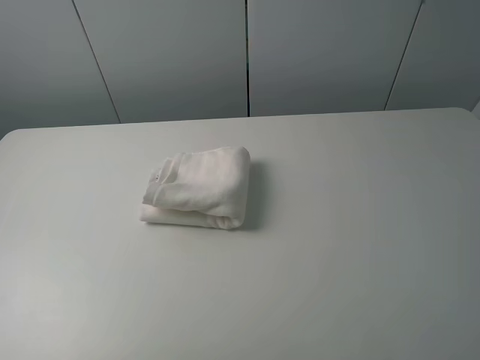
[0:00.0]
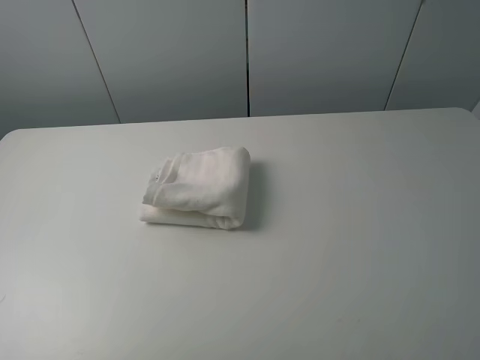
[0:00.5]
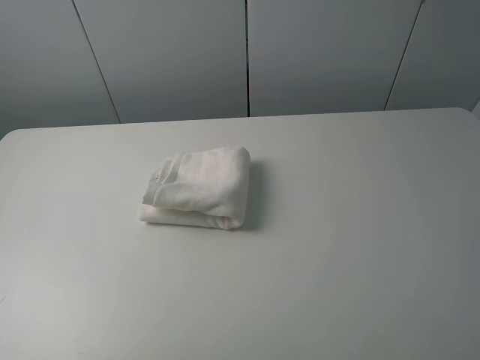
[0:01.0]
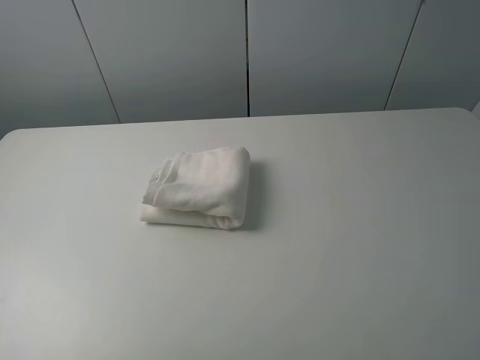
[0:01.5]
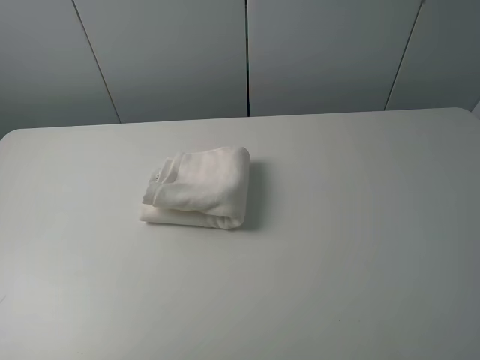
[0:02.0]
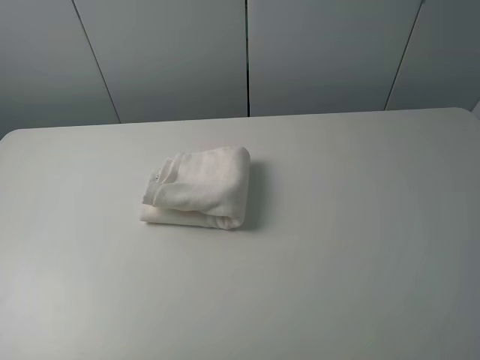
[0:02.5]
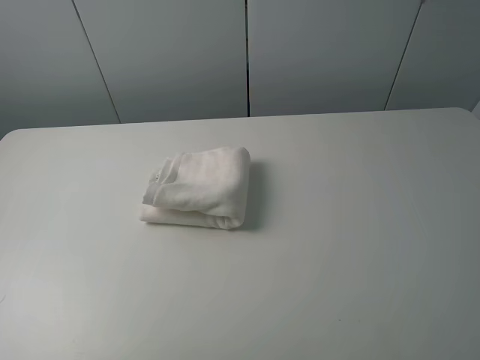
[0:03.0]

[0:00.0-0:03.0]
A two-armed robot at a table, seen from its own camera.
Task of the whole recording: fold the towels on the table.
0:00.0 to 0:01.5: Both grippers stay put.
